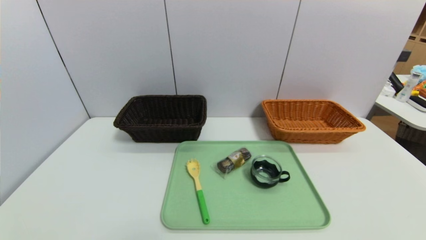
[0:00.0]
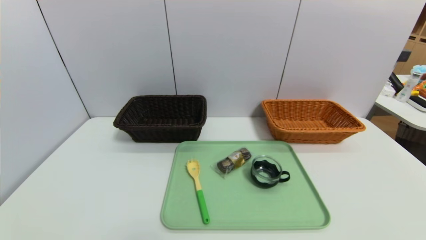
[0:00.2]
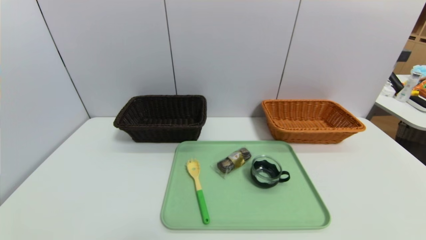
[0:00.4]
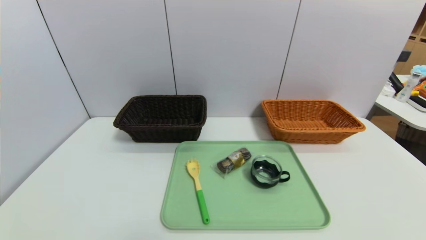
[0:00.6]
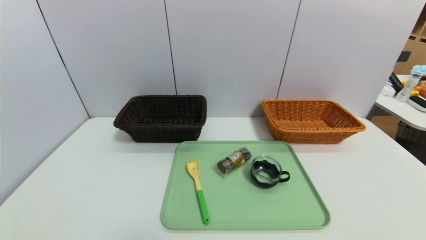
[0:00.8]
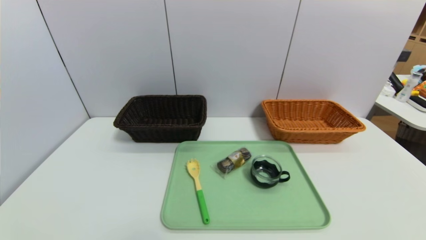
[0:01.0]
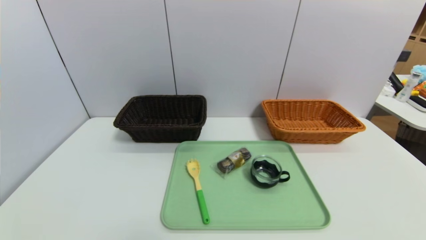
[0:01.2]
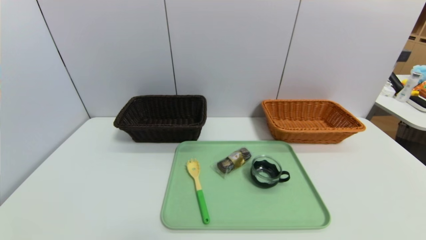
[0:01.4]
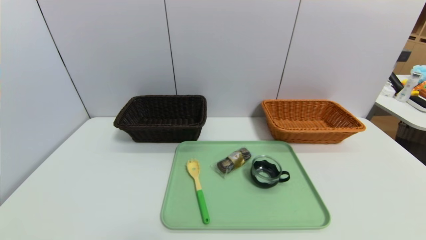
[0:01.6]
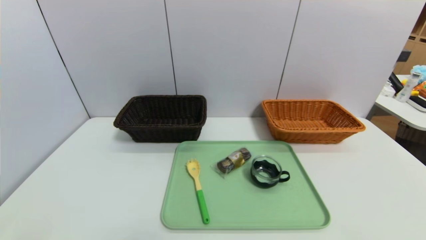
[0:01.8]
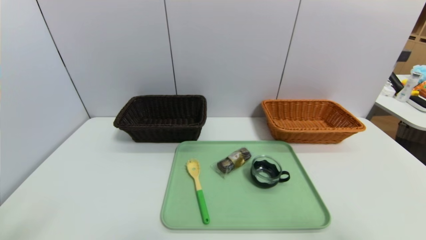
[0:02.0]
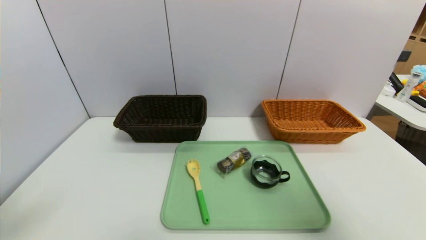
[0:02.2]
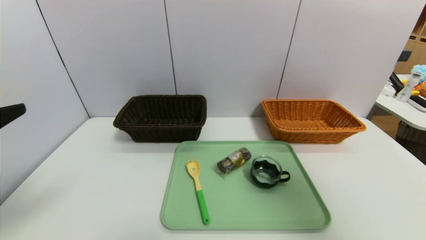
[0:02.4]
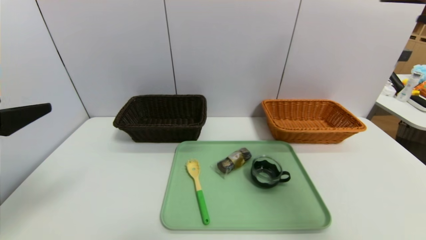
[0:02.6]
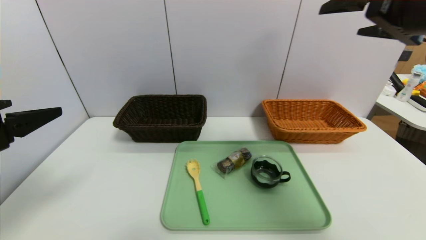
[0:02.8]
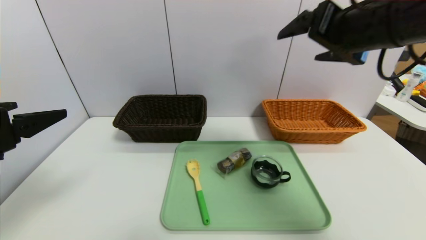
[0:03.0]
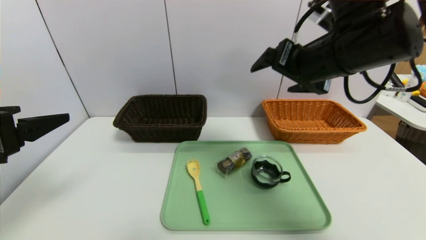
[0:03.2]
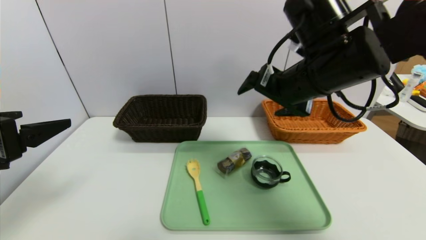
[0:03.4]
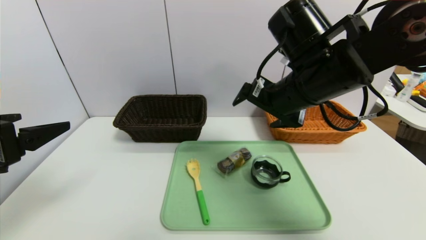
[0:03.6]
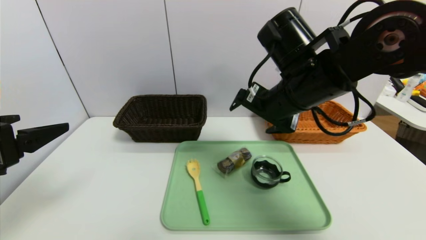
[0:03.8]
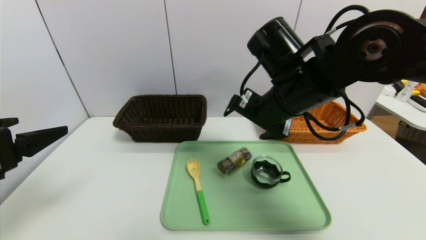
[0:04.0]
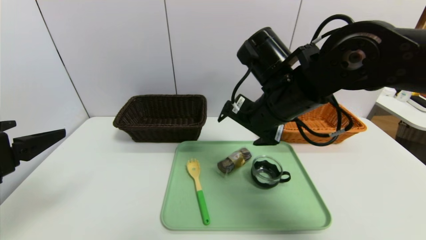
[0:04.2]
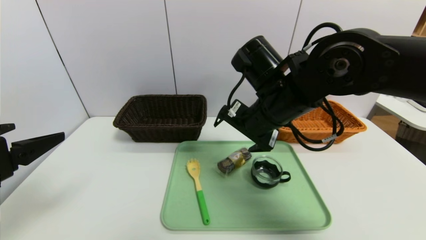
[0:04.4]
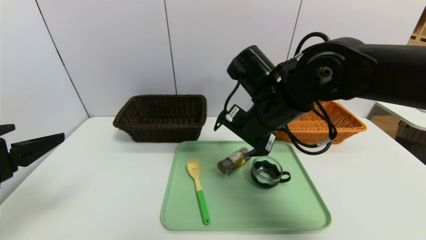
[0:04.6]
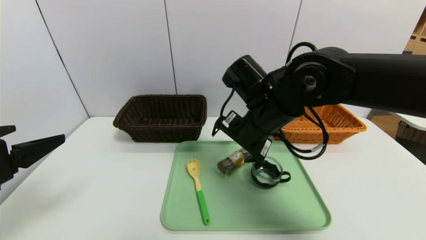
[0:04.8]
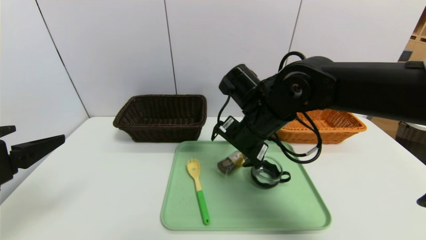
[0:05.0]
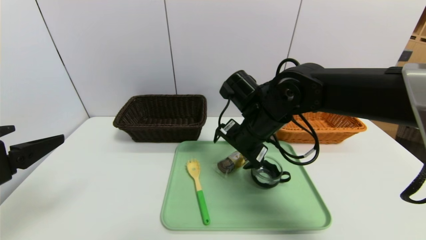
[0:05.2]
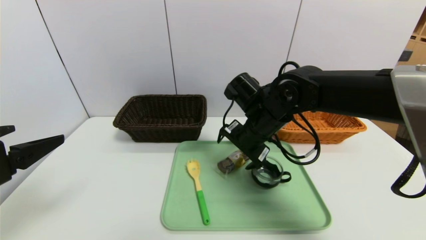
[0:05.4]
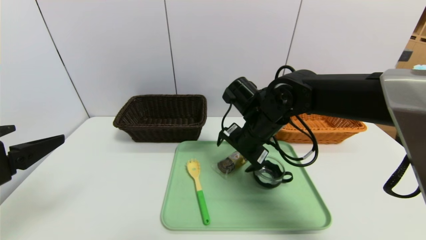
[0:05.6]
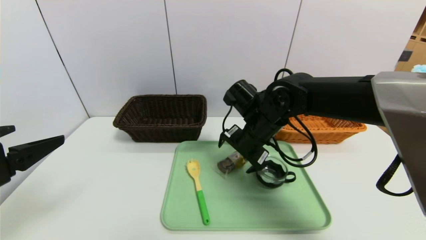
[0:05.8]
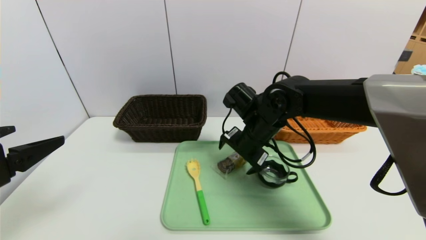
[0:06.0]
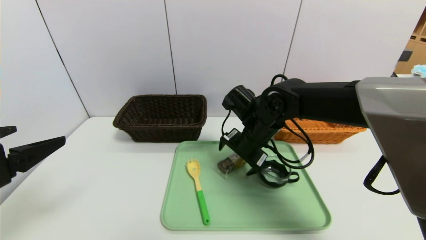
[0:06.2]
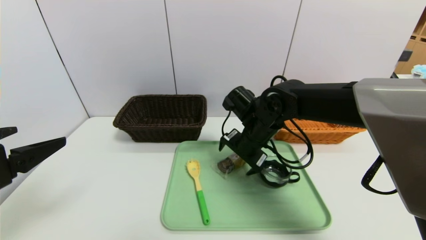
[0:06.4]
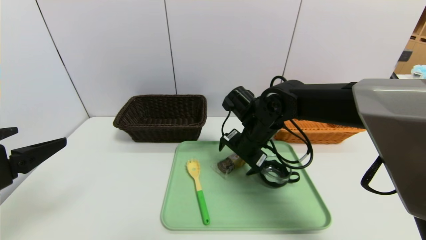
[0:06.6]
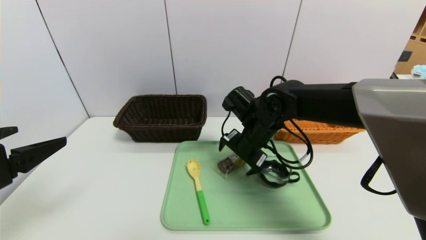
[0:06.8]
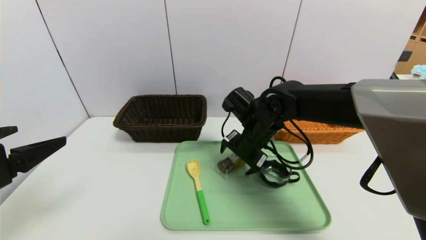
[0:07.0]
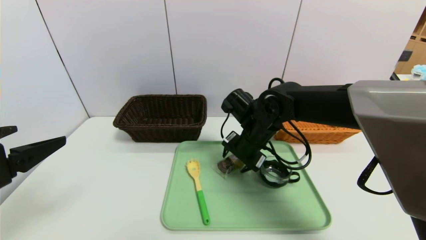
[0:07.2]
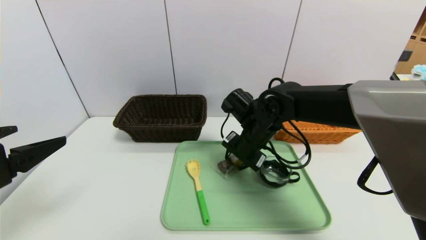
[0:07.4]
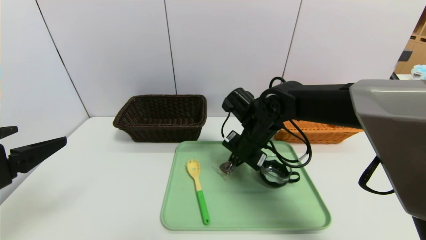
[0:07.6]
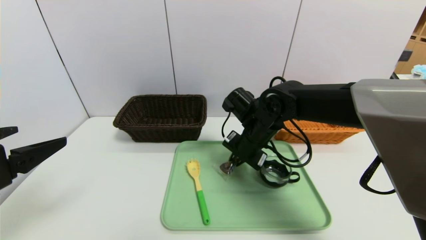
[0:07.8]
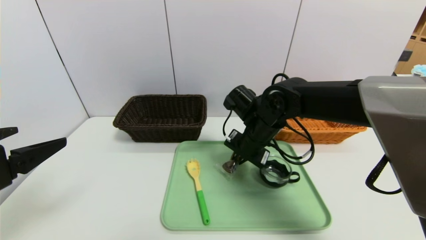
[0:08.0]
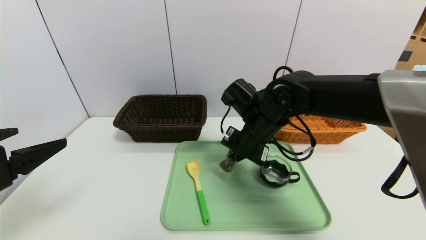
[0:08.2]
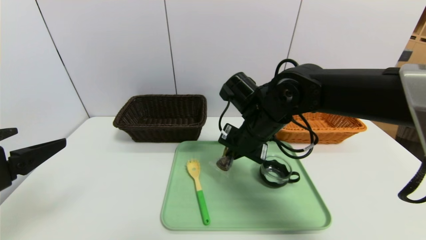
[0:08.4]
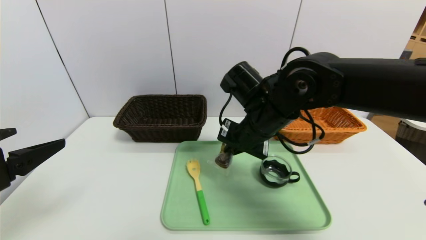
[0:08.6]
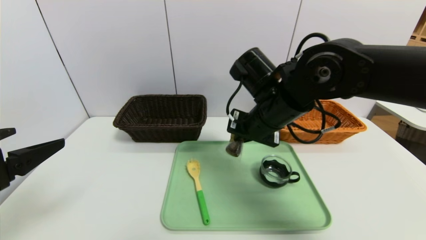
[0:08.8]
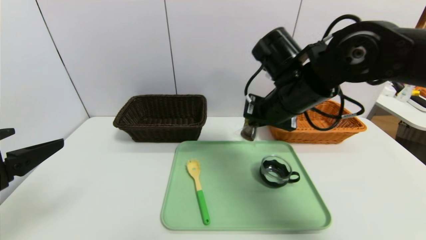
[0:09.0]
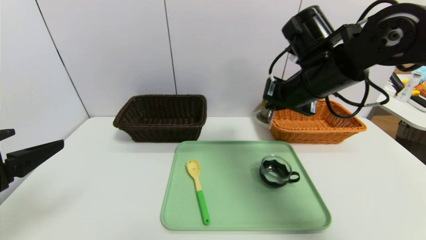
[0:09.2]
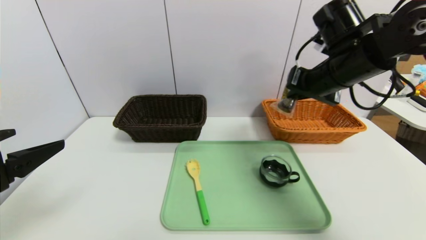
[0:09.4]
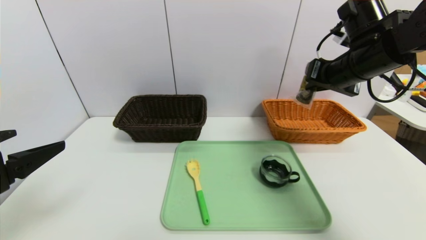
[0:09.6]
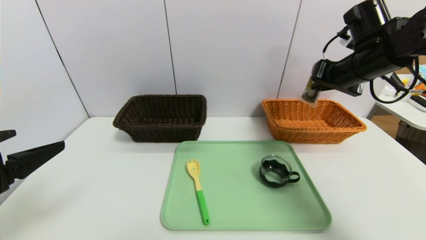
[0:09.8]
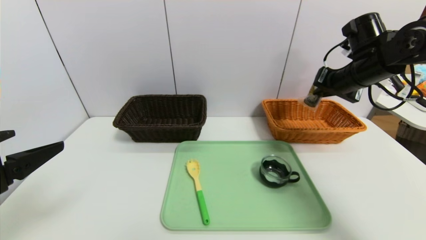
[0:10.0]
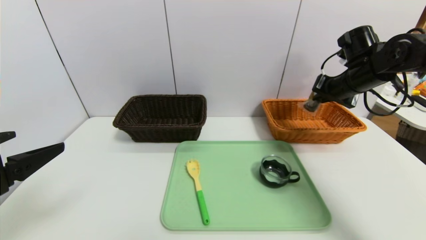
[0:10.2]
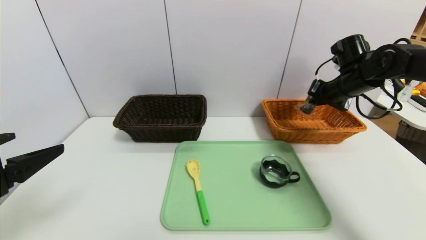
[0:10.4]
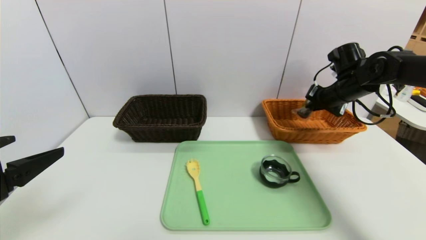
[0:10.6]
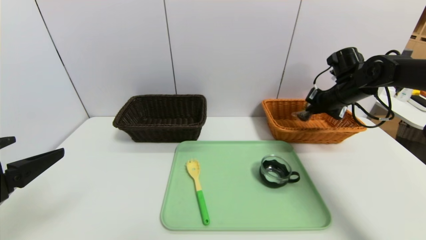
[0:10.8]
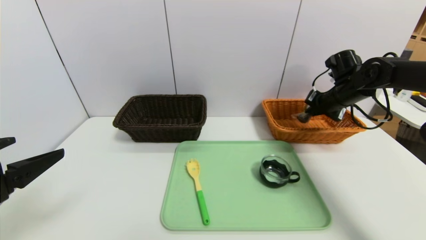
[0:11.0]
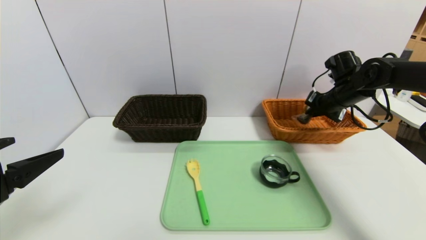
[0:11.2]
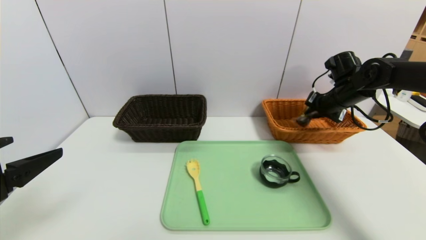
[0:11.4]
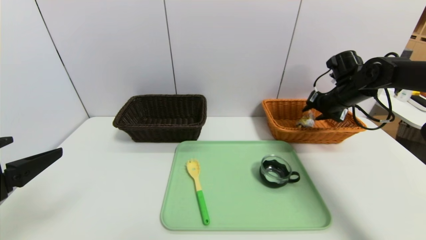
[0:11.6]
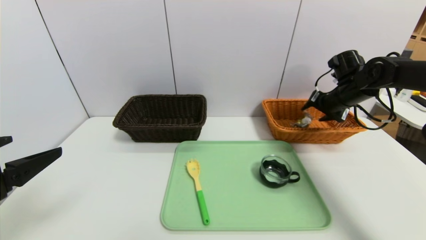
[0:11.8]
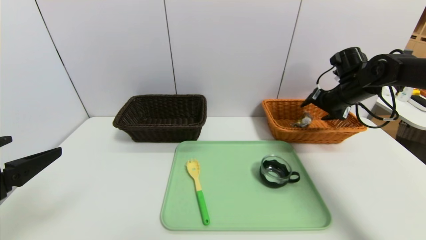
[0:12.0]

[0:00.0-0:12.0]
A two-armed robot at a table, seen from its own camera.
Task of the whole recording: place the food in the right basket with the right gripper, and place the non food items in the left basket with the left gripper.
0:01.6 to 0:03.0: The left gripper moves forward and upward, roughly 20 cm. Meanwhile the right gripper travels forward, upward and to the left by roughly 40 cm.
0:03.0 to 0:04.4: The right gripper travels downward and to the left by about 15 cm.
0:04.4 to 0:06.0: The right gripper heads downward and forward, covering about 10 cm.
0:06.0 to 0:07.6: The right gripper closes up.
0:07.6 to 0:09.0: The right gripper shifts some 10 cm upward.
0:09.0 to 0:10.4: The right gripper goes about 20 cm to the right and forward.
0:10.4 to 0:12.0: The right gripper opens up.

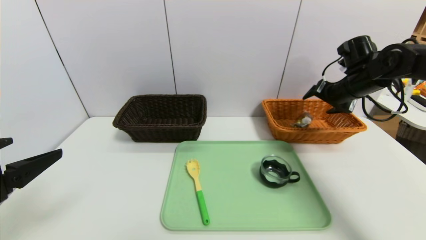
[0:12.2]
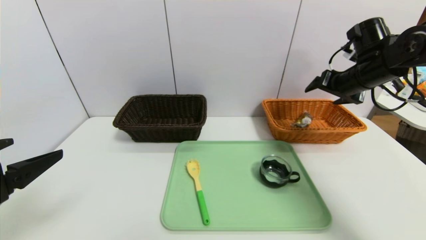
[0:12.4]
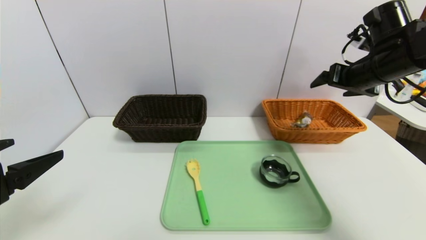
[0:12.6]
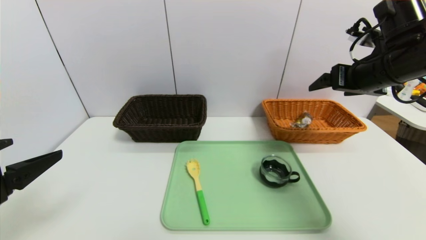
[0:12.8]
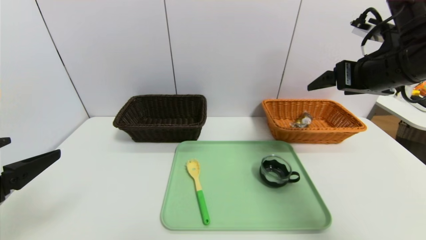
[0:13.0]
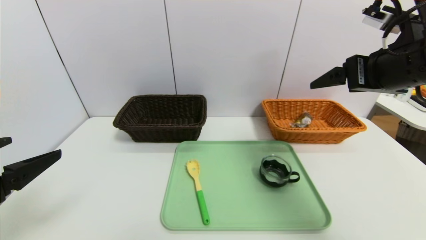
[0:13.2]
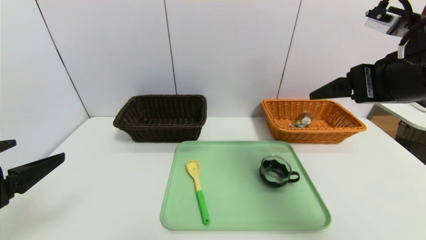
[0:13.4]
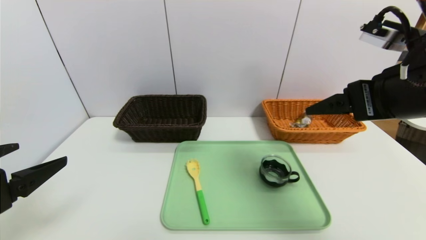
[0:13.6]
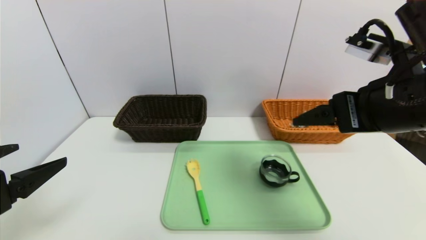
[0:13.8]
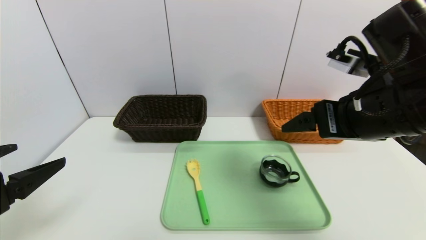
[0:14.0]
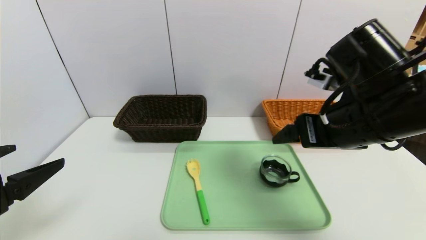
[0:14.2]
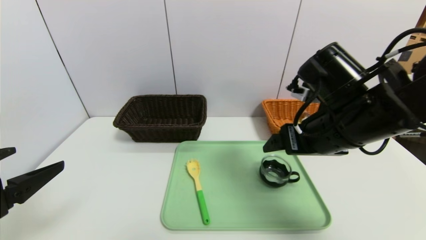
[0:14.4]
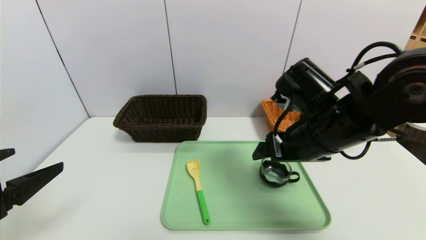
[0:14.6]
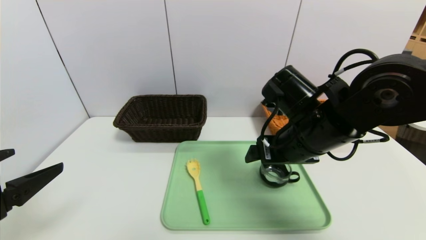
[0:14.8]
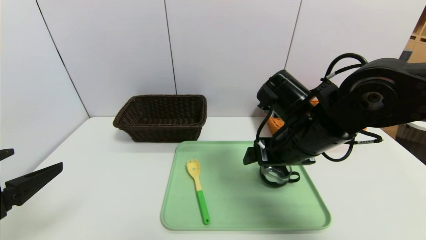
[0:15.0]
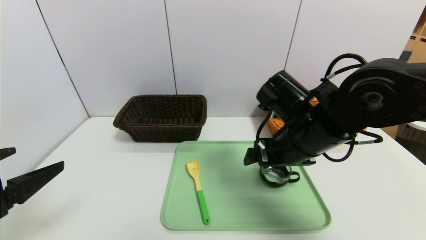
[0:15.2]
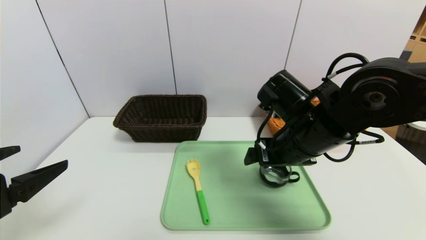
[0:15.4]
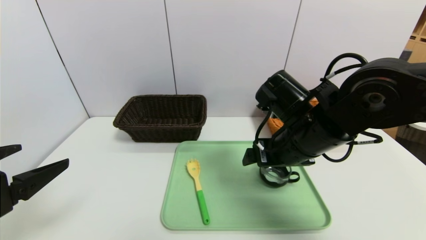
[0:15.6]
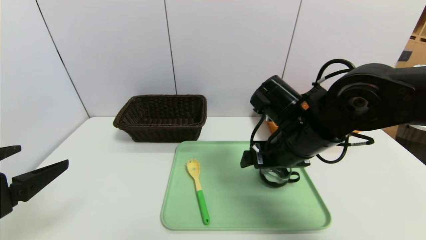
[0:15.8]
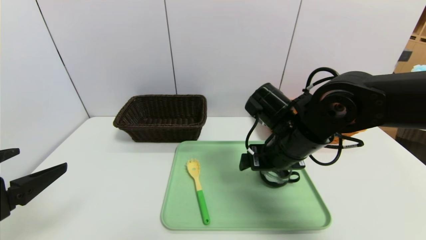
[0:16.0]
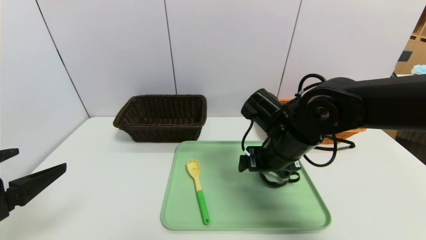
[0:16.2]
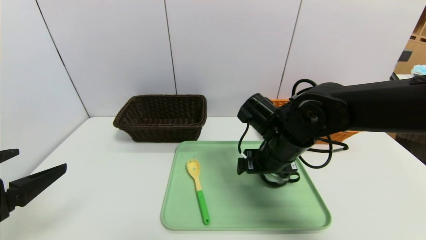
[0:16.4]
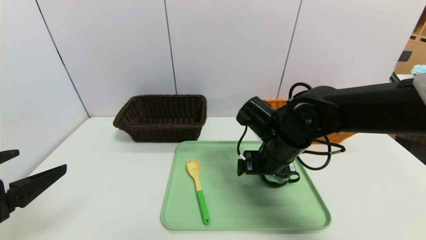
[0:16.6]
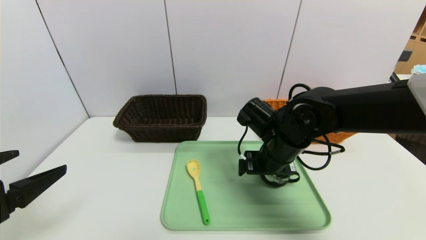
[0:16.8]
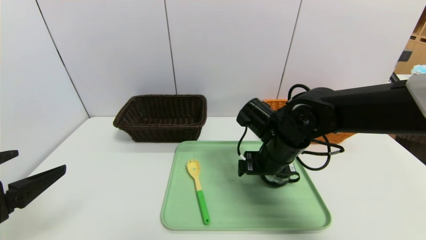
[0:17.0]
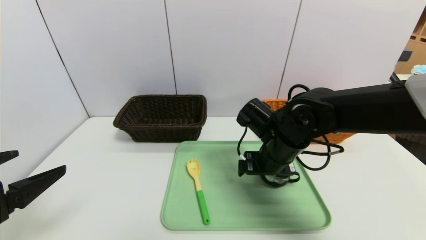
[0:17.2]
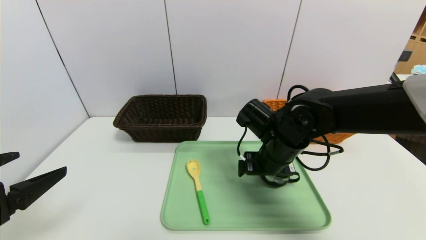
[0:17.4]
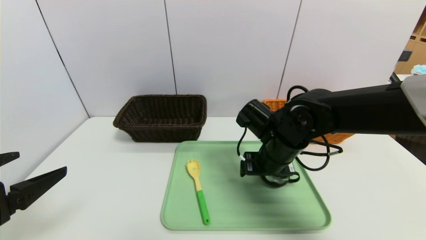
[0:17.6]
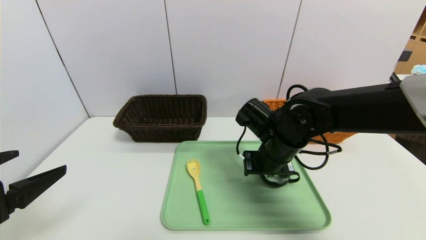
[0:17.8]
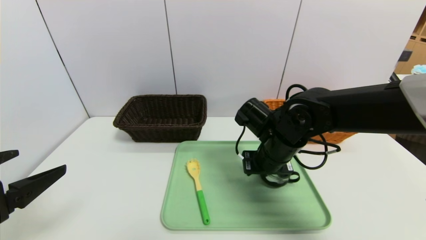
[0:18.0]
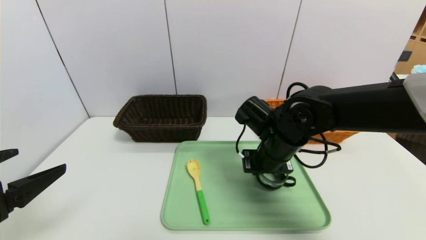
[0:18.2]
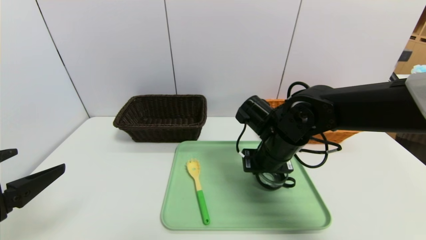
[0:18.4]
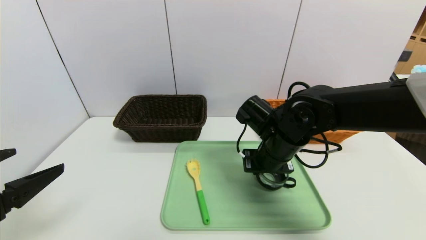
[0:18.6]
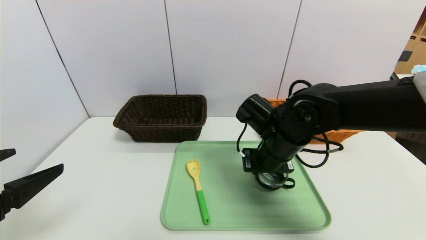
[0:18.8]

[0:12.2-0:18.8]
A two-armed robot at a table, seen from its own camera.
Task of the whole recording: place the food in the right basket with the right gripper, and place the non food items in the left basket with the left gripper.
0:12.2 to 0:13.8: The right gripper shifts about 25 cm backward and to the left.
0:13.8 to 0:15.4: The right gripper goes about 15 cm downward, to the left and forward.
0:15.4 to 0:17.2: The right gripper travels downward by some 5 cm.
0:17.2 to 0:18.8: The right gripper closes.
